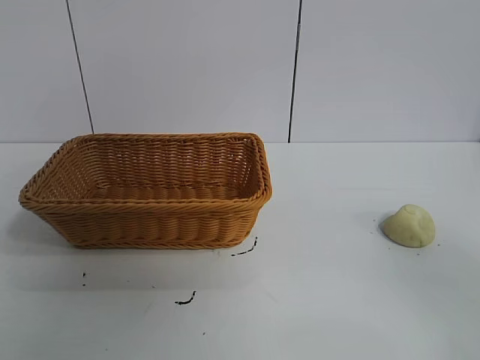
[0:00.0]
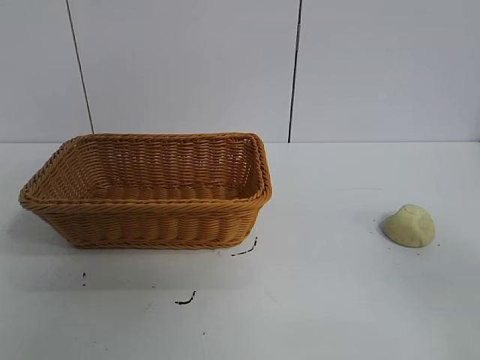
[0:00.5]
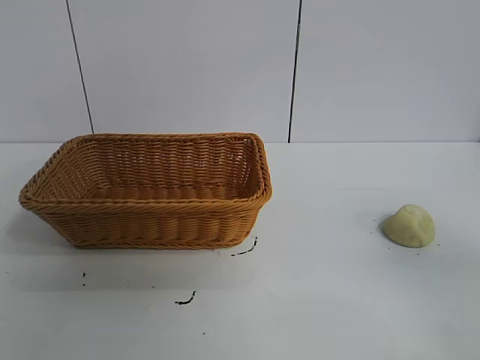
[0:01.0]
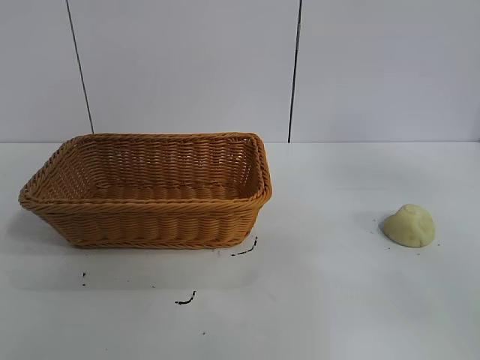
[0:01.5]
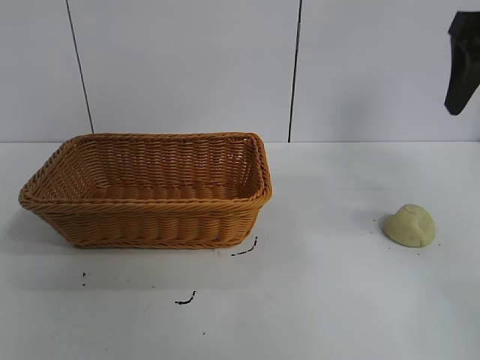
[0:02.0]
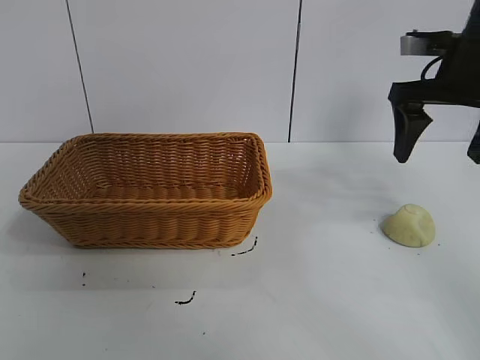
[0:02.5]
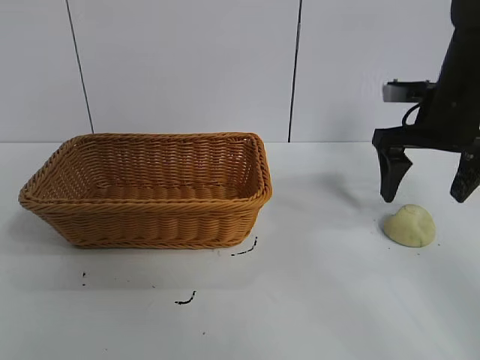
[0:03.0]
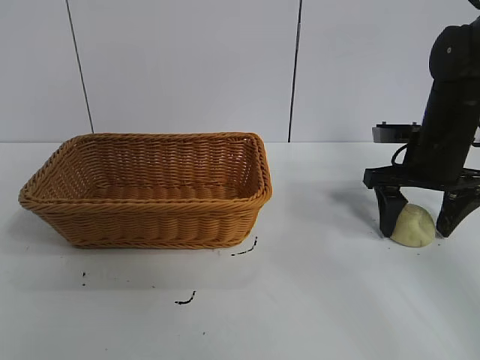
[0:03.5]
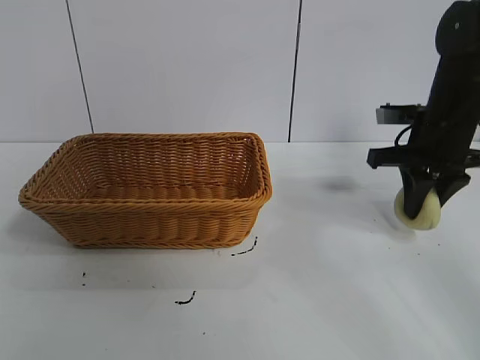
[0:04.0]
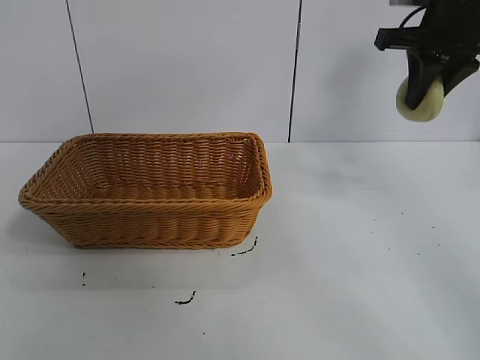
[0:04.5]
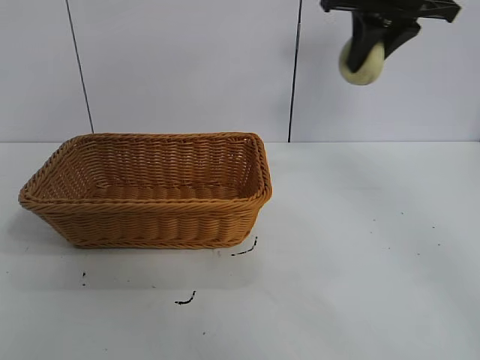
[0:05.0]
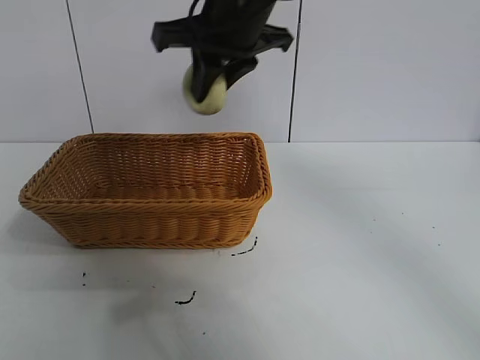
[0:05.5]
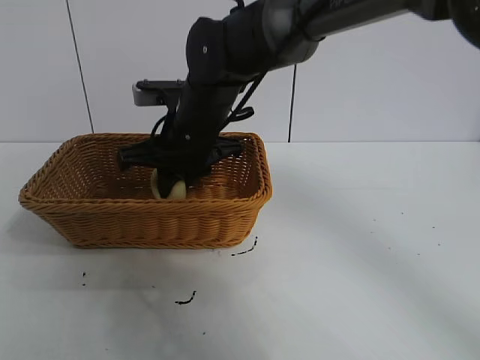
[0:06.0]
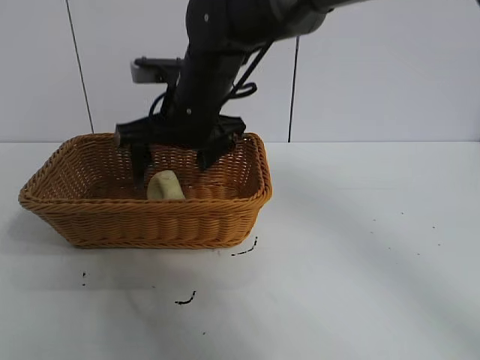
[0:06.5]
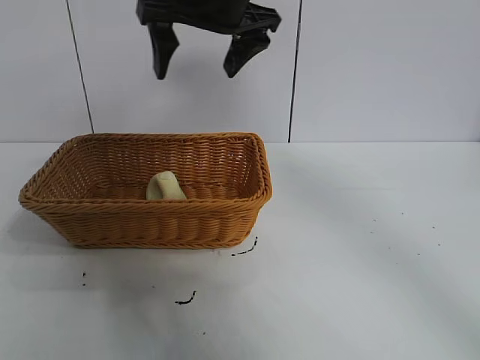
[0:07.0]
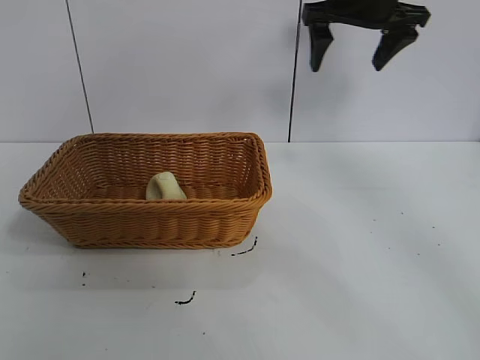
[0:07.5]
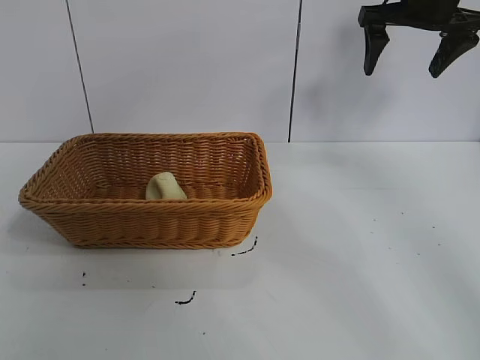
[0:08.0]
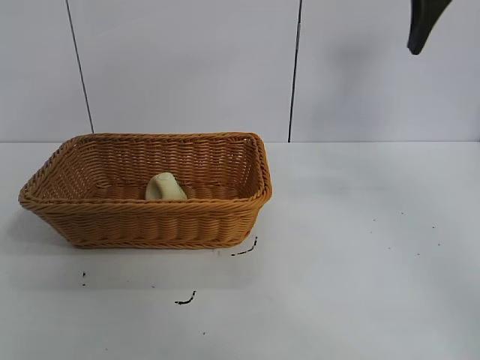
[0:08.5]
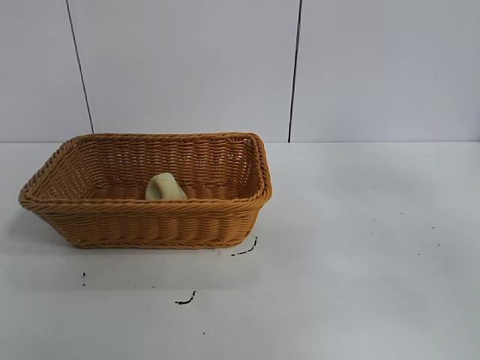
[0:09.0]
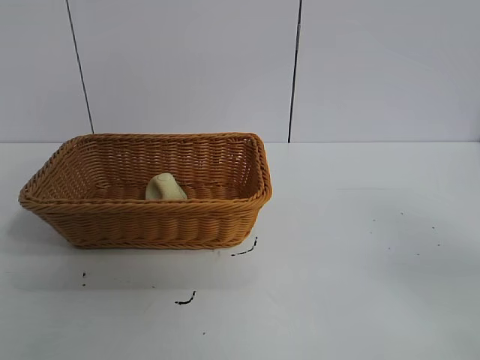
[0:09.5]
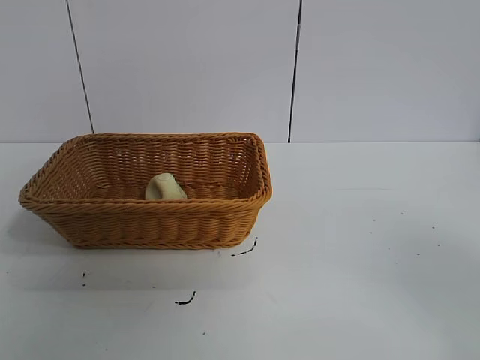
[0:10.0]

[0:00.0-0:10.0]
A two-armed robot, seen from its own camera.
Task of the whole recording: pick up the egg yolk pastry and put it into the basket.
Step, 0:01.0 to 0:03.5: Grasp egg yolk pastry with right gripper.
Step, 0:04.0 to 0:06.5: Place the egg yolk pastry in the basket with right gripper.

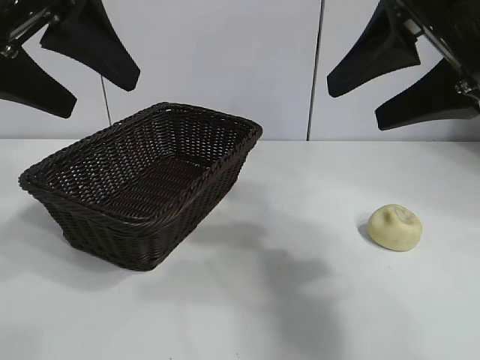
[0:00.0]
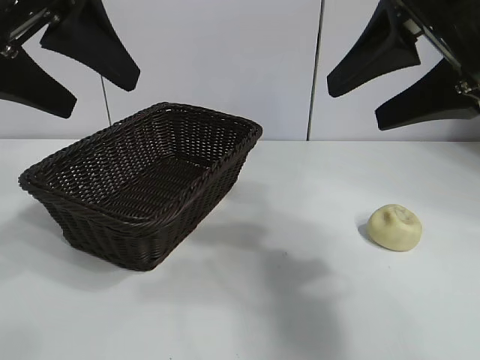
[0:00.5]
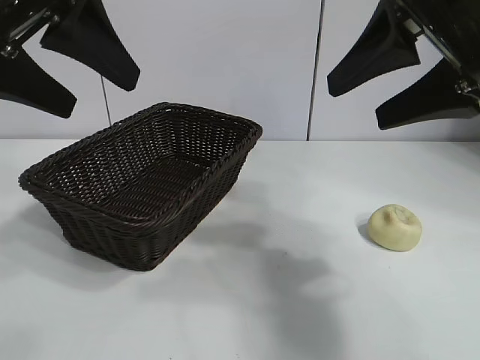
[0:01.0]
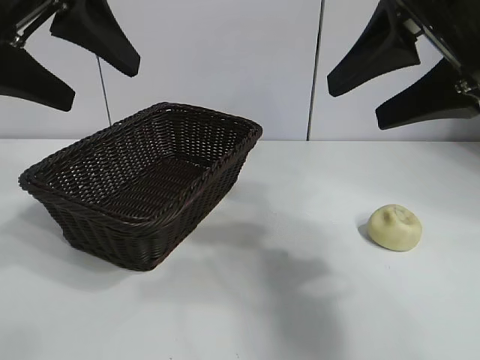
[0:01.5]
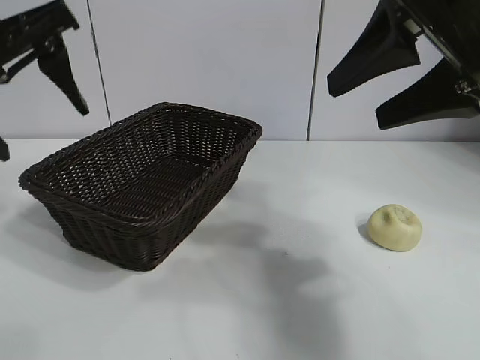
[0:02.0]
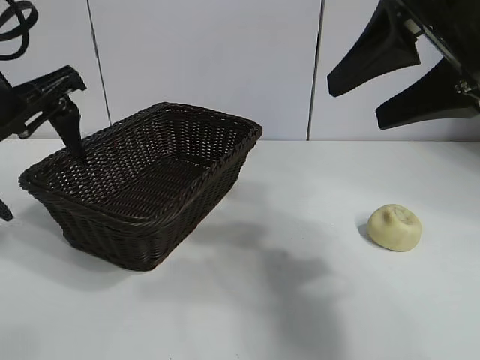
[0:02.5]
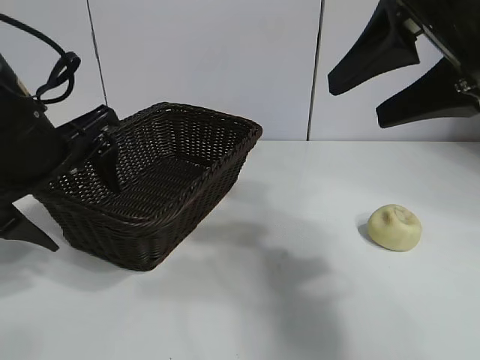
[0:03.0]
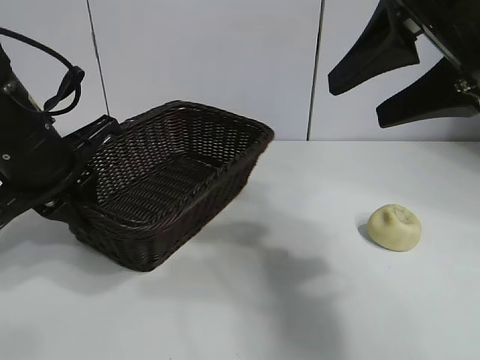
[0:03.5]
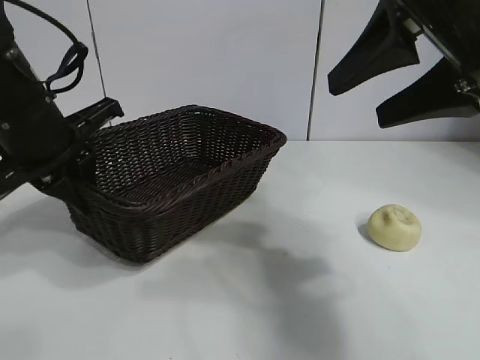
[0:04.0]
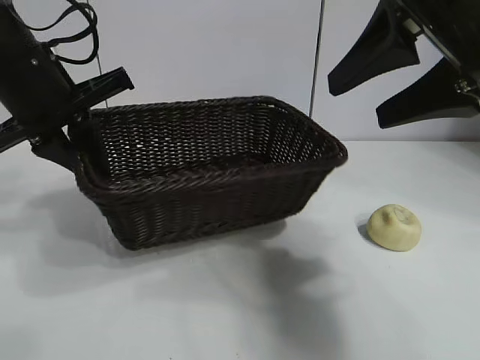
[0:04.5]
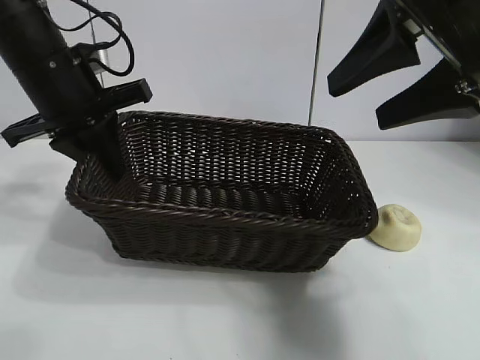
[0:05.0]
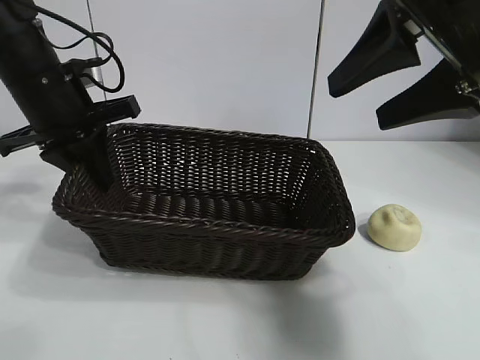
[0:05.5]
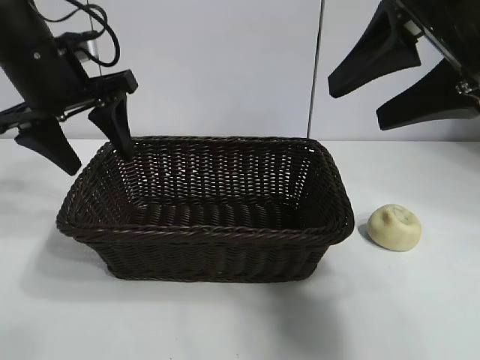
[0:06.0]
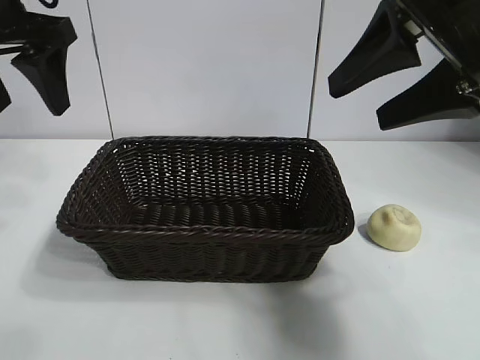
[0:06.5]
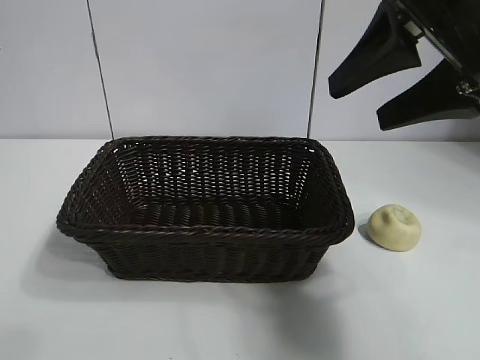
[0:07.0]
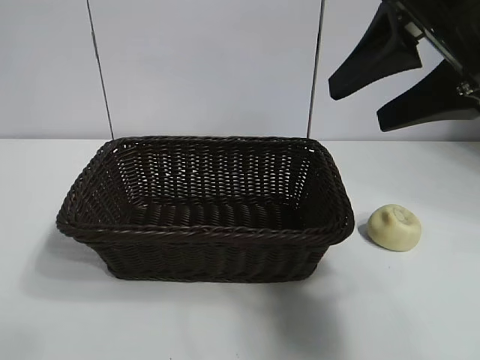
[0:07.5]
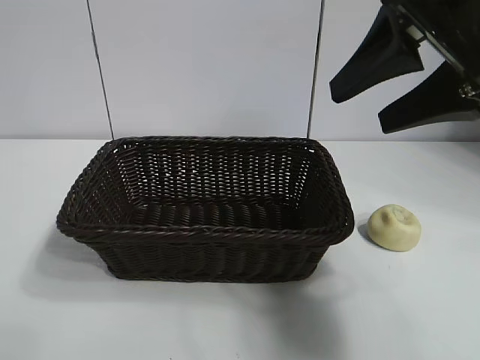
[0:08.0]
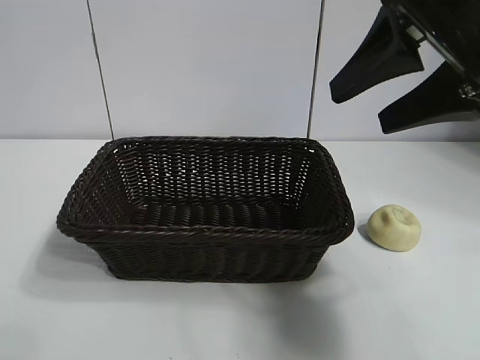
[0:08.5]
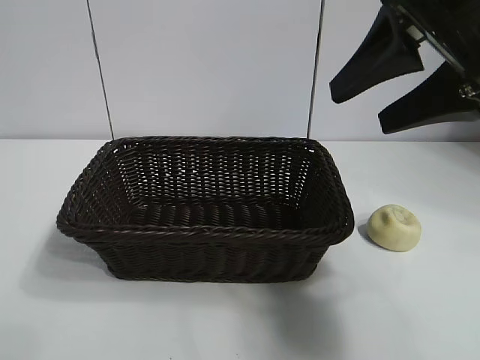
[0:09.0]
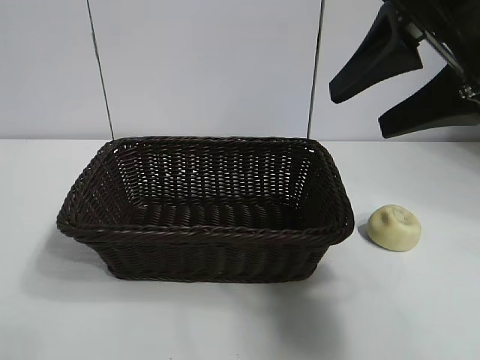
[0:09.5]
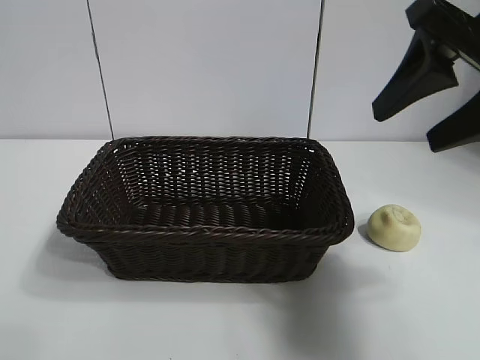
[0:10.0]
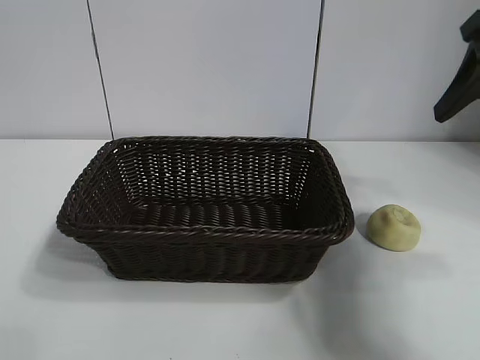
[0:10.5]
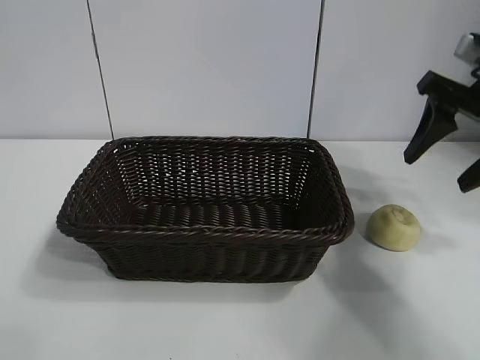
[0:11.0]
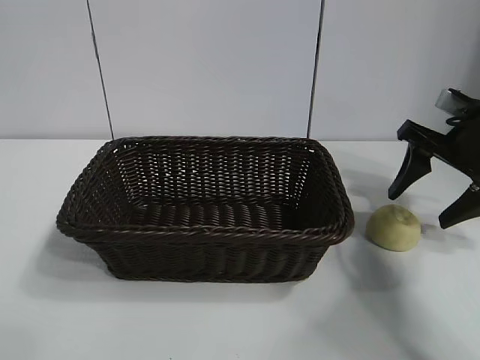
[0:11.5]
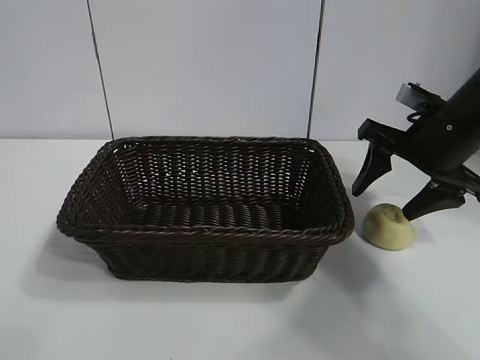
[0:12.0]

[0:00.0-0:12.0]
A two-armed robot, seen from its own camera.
Task of the whole recording: pick up the egg yolk pastry and put it into the basket.
Step, 0:01.5 to 0:03.5: Grasp the basket with left gripper.
Step, 0:04.0 to 0:05.5: Place the basket in the center of view with left gripper.

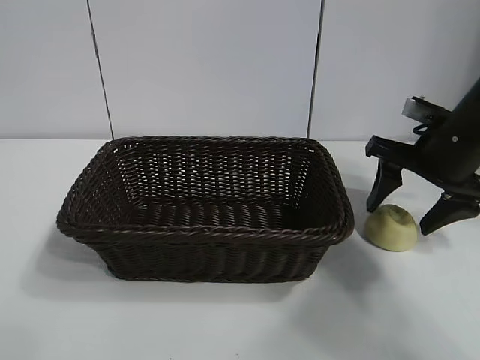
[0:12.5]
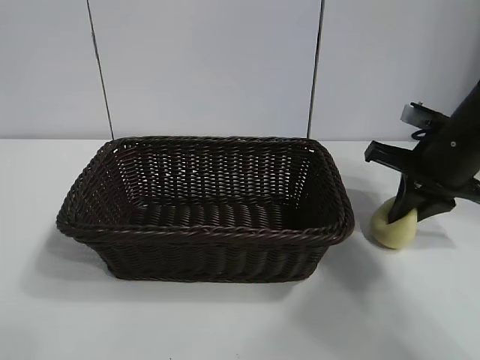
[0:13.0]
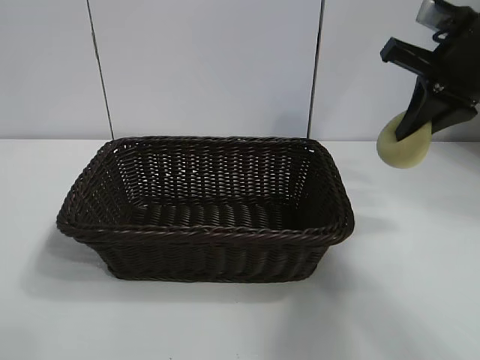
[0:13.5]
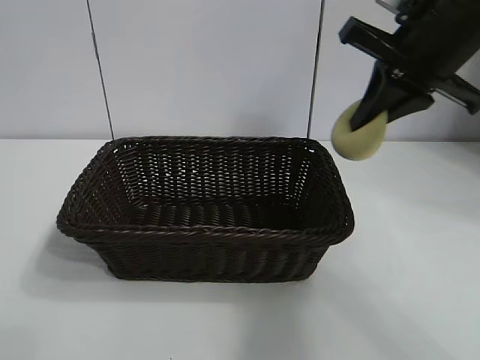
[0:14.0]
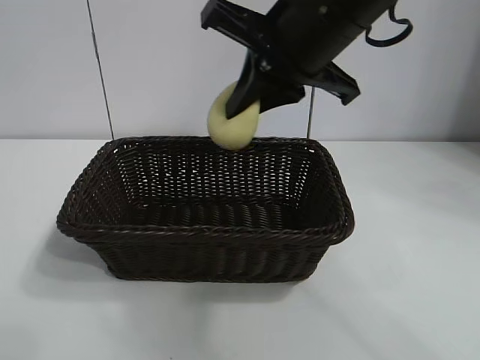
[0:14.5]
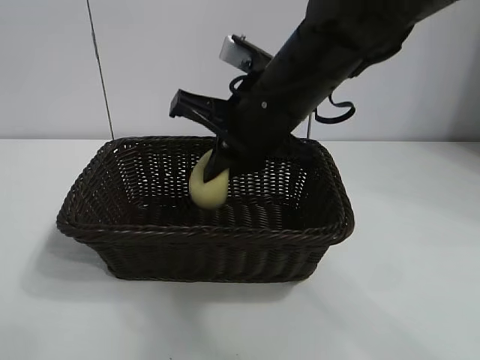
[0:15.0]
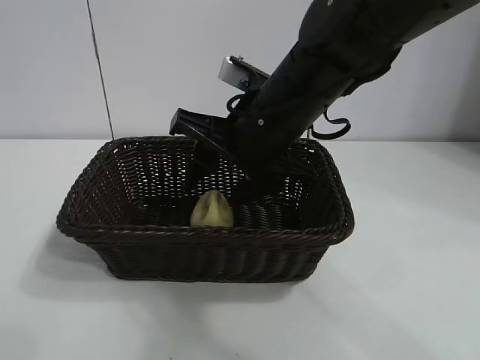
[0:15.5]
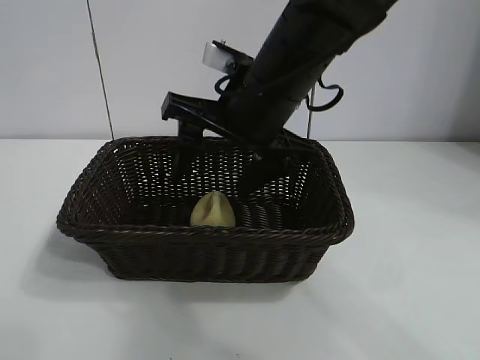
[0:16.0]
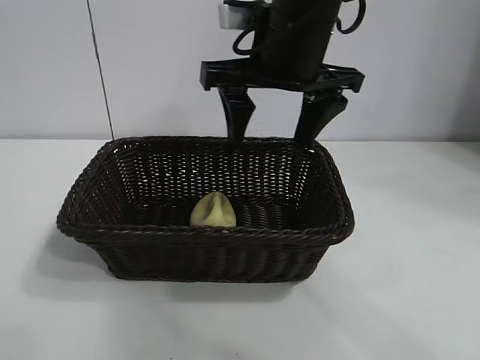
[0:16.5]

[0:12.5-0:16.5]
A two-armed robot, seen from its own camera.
Task of the whole recording: pick up the egg yolk pastry and put it into the basket.
Step, 0:13.5 to 0:15.5: Place the egg yolk pastry in the basket with right gripper.
